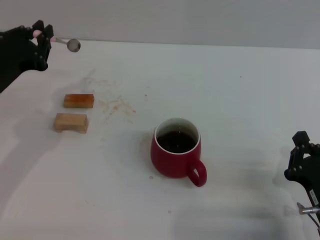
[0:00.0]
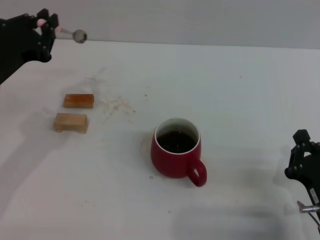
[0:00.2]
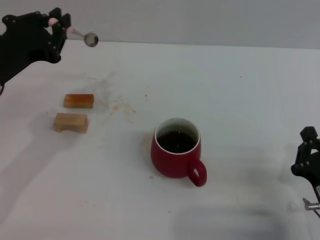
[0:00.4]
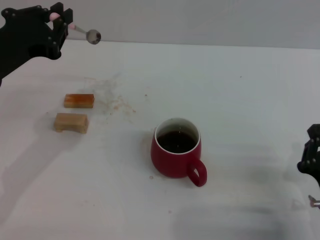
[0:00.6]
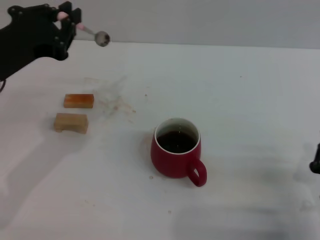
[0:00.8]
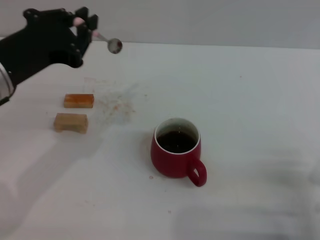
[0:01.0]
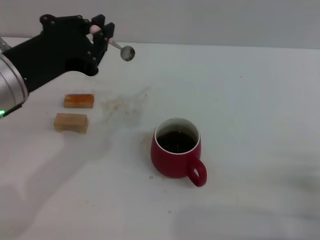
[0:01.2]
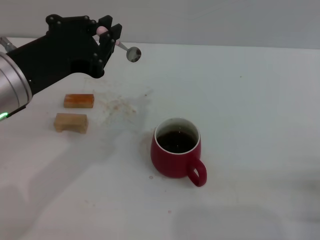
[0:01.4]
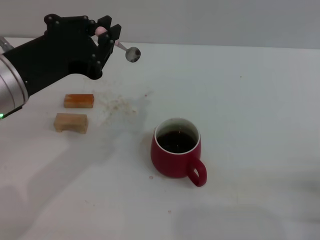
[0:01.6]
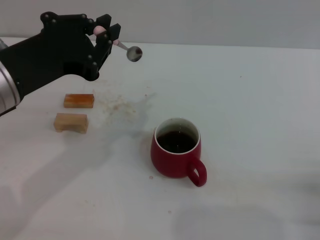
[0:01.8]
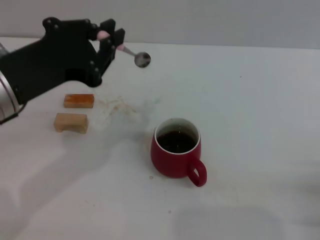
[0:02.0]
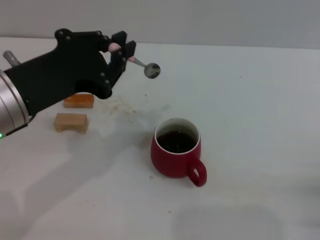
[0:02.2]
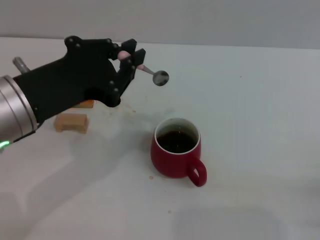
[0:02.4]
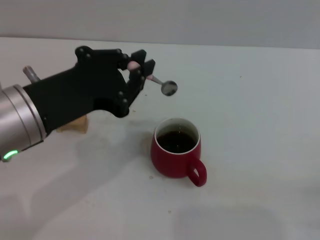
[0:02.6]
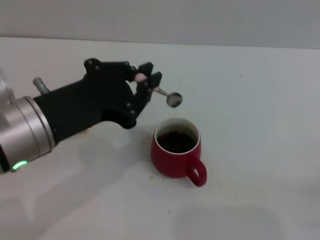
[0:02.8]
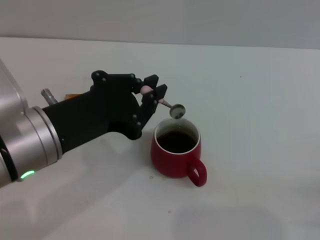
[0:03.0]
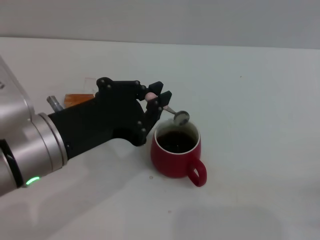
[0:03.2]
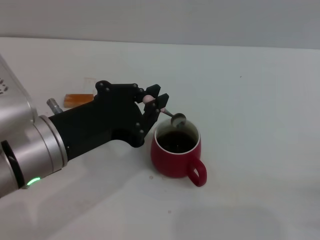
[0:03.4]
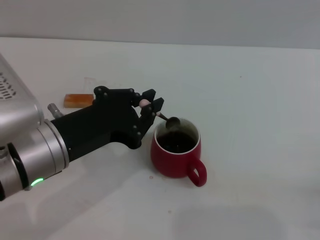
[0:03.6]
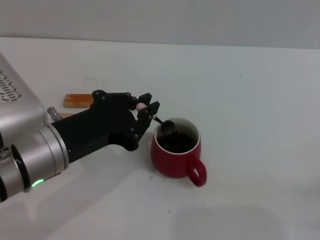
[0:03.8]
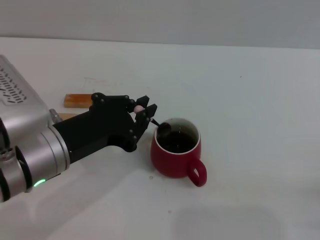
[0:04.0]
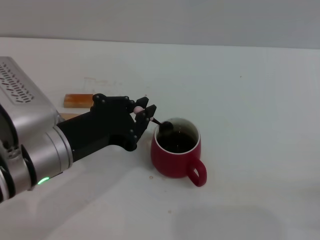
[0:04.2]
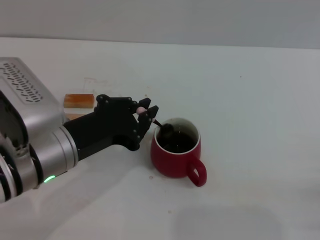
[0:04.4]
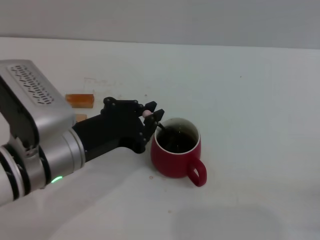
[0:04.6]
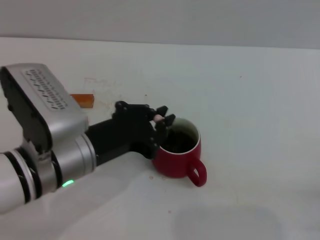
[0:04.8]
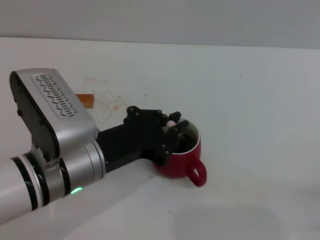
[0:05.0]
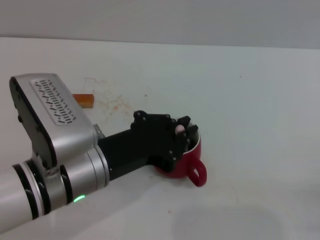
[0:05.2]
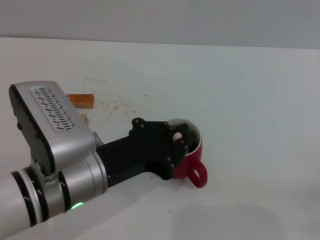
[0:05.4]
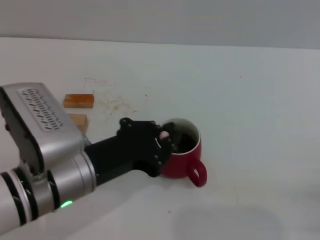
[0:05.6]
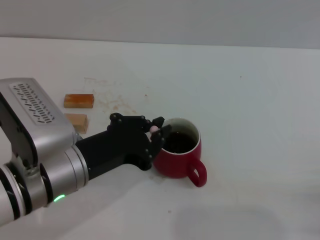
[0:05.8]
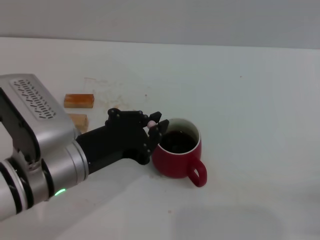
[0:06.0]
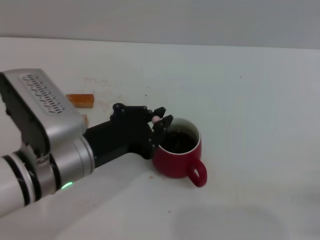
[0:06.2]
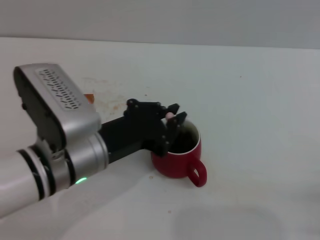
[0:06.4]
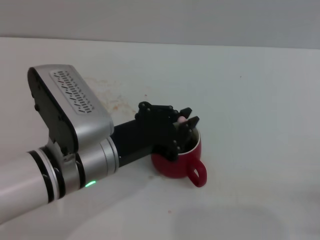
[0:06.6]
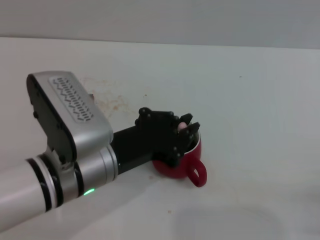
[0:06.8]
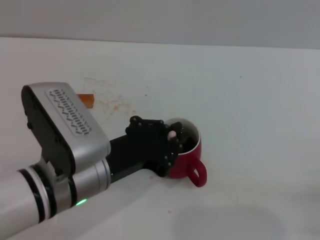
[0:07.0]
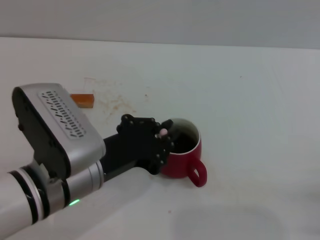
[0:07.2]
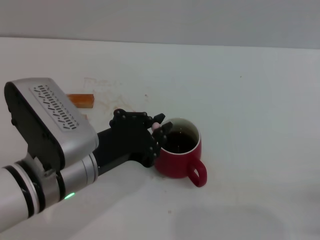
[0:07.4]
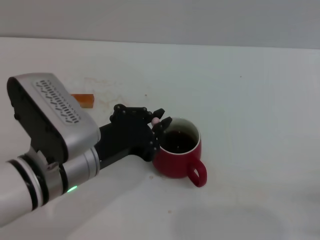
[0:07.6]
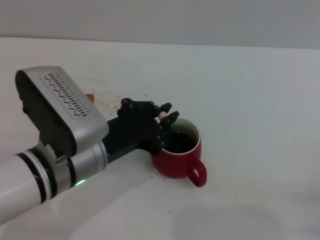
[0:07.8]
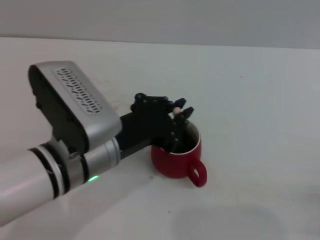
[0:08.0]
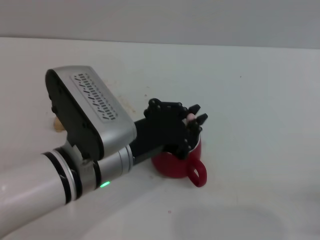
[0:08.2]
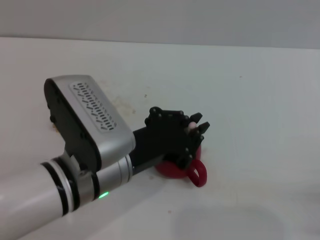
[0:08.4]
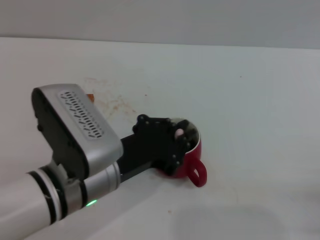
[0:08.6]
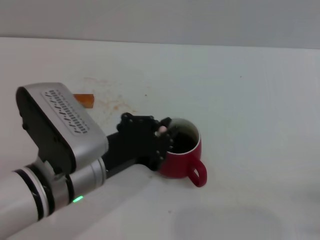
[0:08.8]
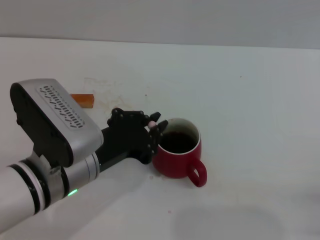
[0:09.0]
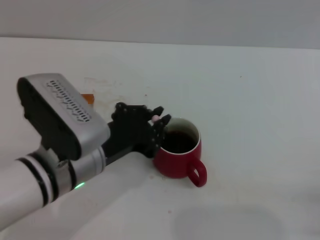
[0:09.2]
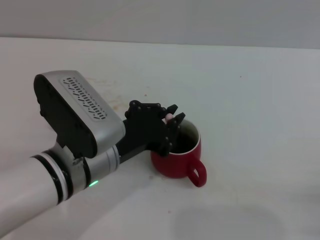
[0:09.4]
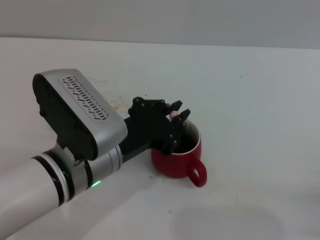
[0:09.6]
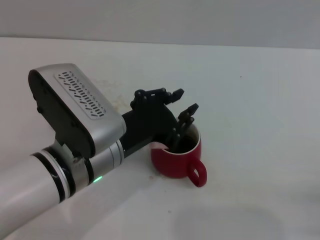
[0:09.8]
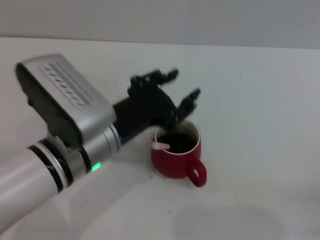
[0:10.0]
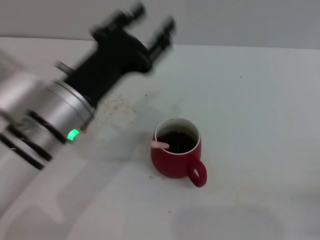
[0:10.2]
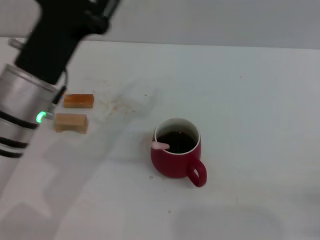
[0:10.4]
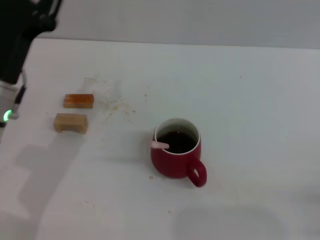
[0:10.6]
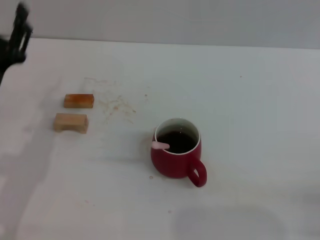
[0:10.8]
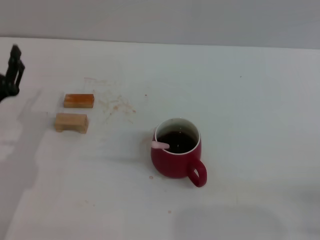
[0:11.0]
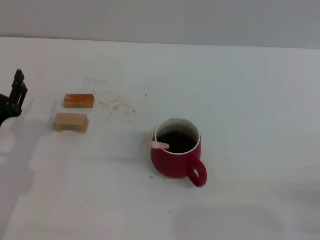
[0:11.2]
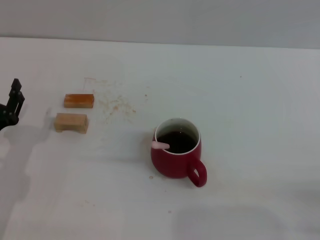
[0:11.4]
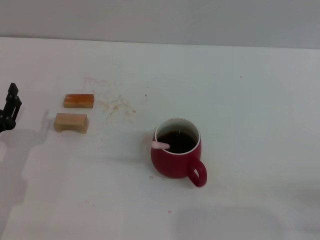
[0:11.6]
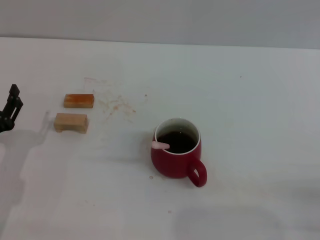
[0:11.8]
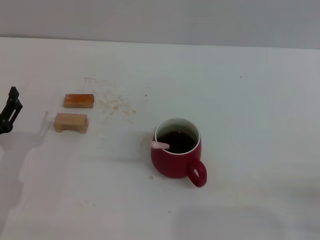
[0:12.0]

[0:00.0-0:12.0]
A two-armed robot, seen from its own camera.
Task of the whole recording: Move the red cup to the center, lift the pink spoon, stir it three times in the cup, and put the spoon into the cup.
Step, 0:00.6 to 0:09.8: Stir the coffee in the cup with the left gripper.
0:00.0 to 0:01.6: The right gripper heads to the right, covering about 5 cm; the left gripper heads upward, to the right and backward, covering approximately 15 cm.
0:01.6 to 0:03.0: The left gripper moves some 5 cm.
0:03.0 to 0:04.4: The left gripper shifts by about 5 cm.
0:04.4 to 0:09.0: There are only small adjustments of the grippers.
0:09.0 to 0:10.4: The left gripper changes place by roughly 5 cm, and opens.
0:10.4 to 0:12.0: The left gripper heads downward and to the left, covering roughly 20 cm.

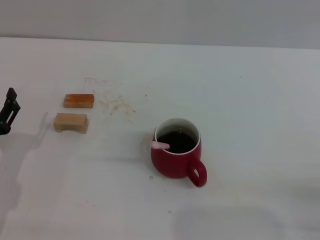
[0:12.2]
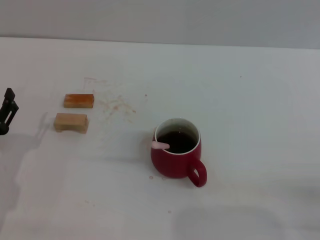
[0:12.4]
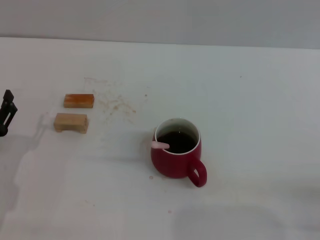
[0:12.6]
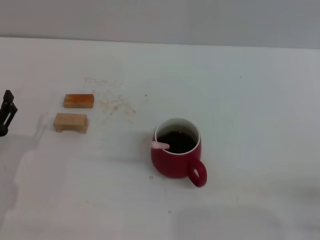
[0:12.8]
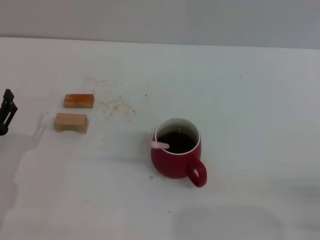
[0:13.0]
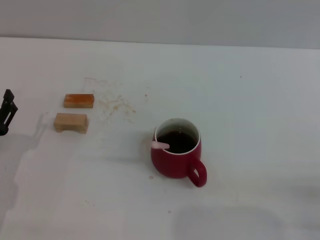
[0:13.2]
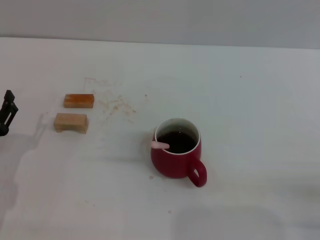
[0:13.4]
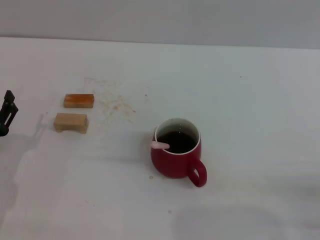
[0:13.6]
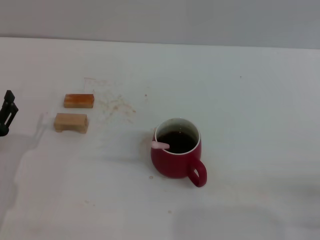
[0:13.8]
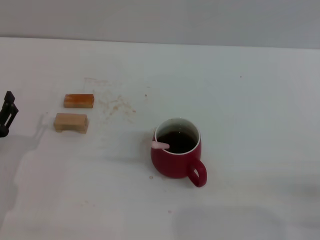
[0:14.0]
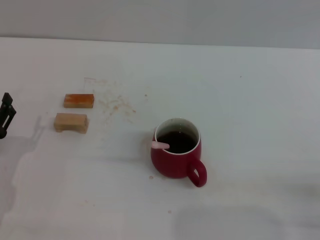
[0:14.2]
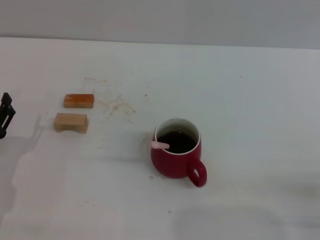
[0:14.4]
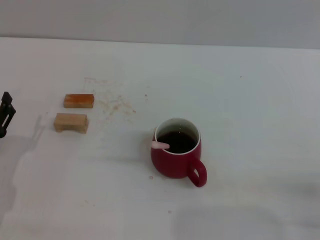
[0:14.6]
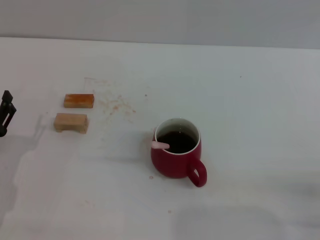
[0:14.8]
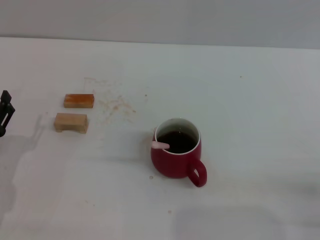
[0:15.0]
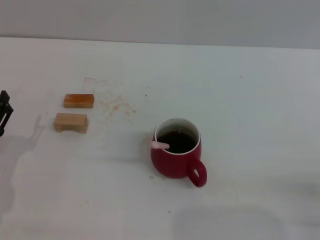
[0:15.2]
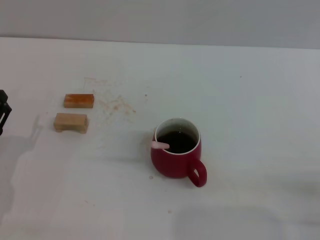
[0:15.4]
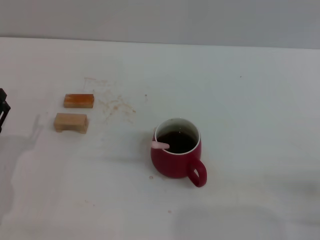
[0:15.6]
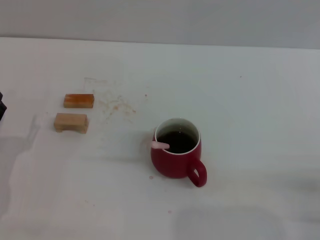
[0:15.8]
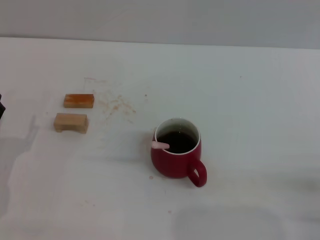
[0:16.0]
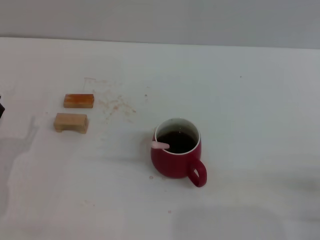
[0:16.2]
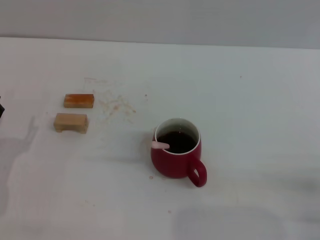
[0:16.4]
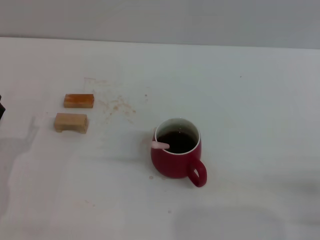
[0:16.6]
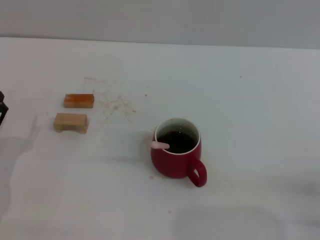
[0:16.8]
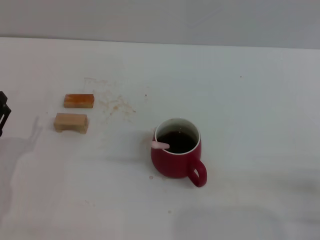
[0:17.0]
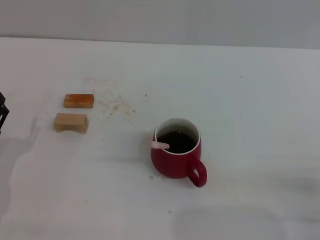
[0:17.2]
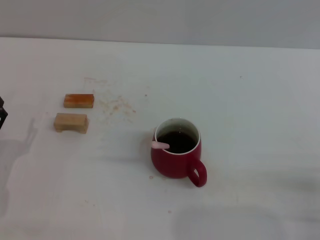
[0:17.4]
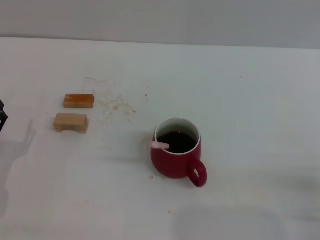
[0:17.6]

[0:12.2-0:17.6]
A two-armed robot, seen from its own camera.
Task of the whole recording: Move the red cup to the center, lift the pink spoon, stir it three times in the cup, and put the spoon into the cup.
0:12.2 to 0:15.0: Both grippers stay about where they are.
0:15.0 to 0:17.6: Both grippers stay about where they are.
